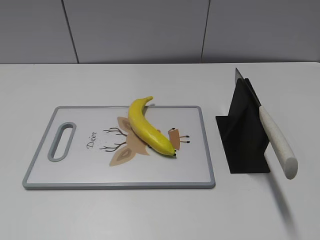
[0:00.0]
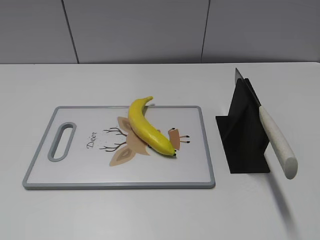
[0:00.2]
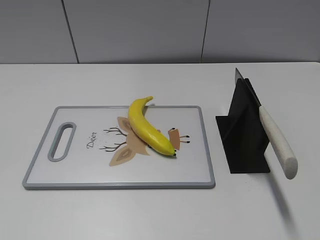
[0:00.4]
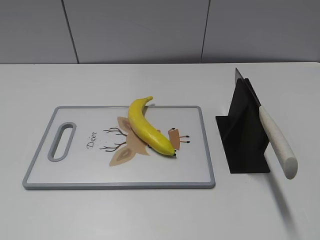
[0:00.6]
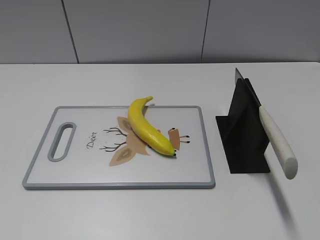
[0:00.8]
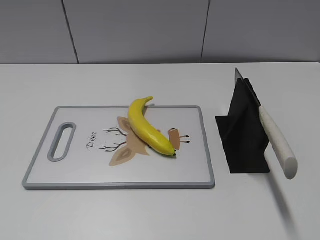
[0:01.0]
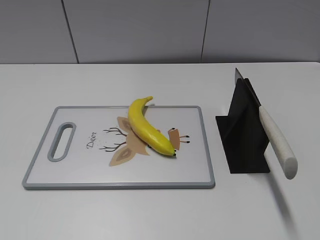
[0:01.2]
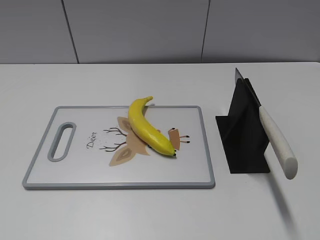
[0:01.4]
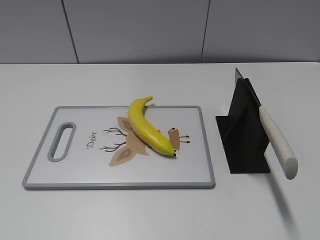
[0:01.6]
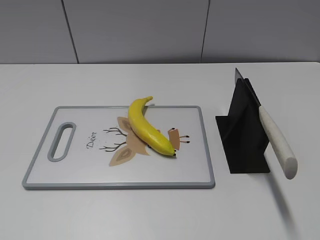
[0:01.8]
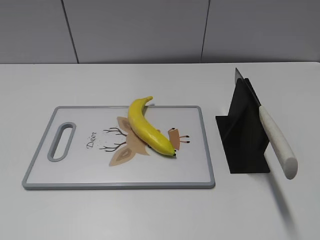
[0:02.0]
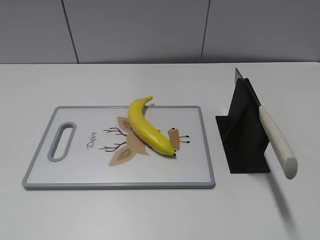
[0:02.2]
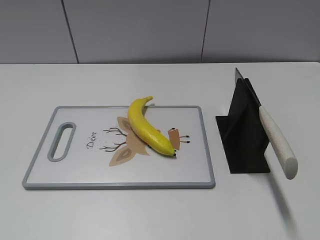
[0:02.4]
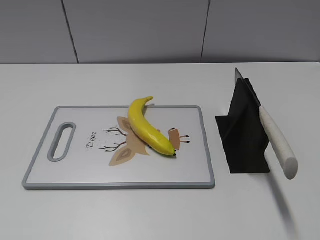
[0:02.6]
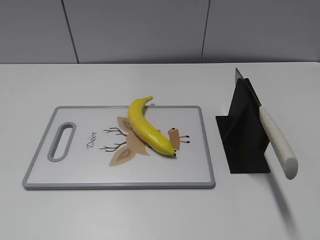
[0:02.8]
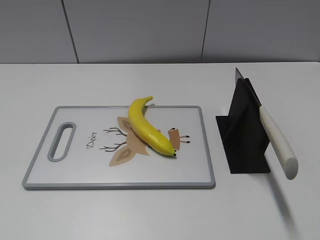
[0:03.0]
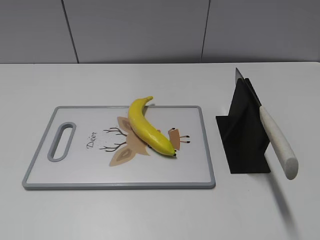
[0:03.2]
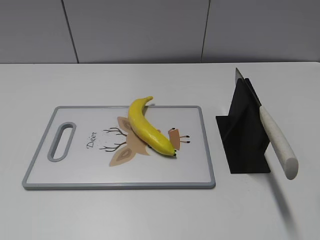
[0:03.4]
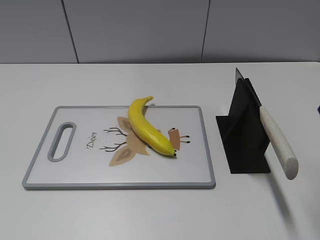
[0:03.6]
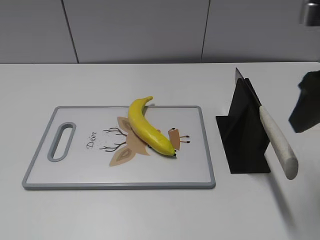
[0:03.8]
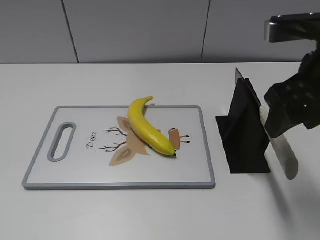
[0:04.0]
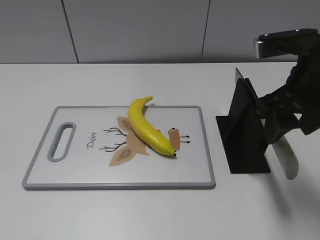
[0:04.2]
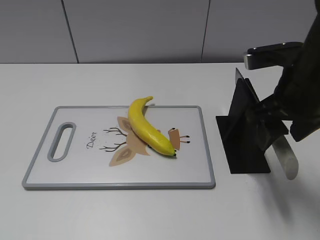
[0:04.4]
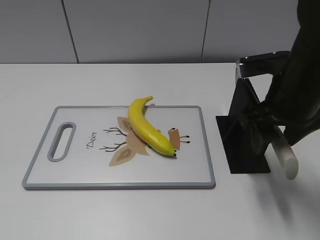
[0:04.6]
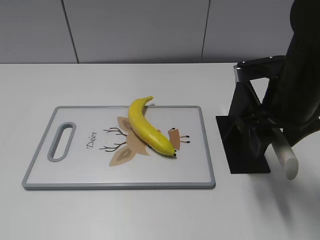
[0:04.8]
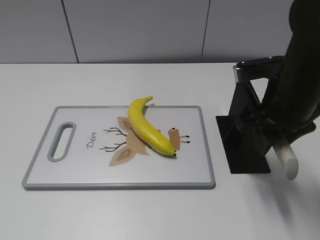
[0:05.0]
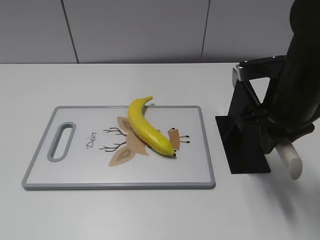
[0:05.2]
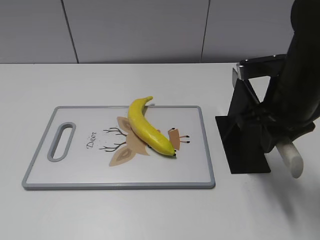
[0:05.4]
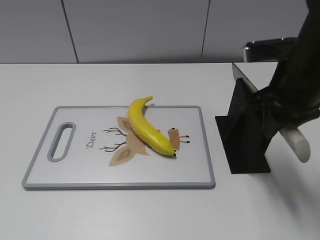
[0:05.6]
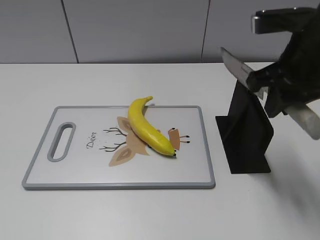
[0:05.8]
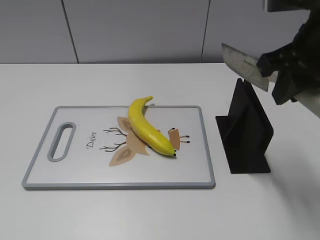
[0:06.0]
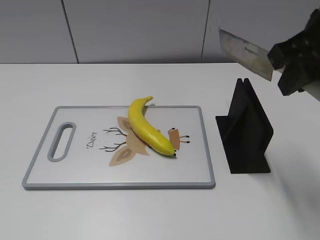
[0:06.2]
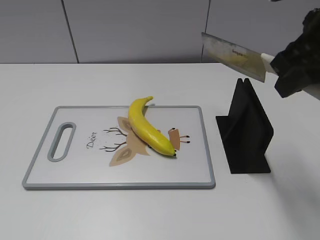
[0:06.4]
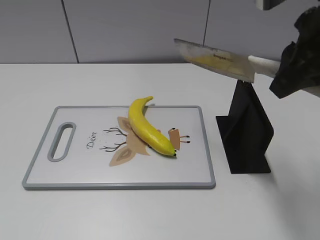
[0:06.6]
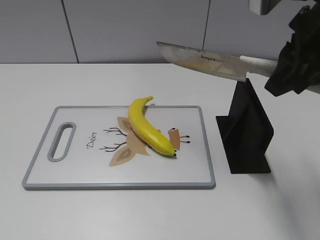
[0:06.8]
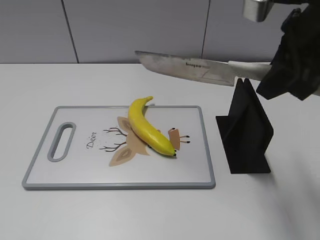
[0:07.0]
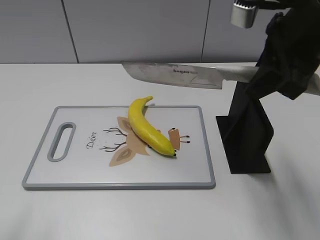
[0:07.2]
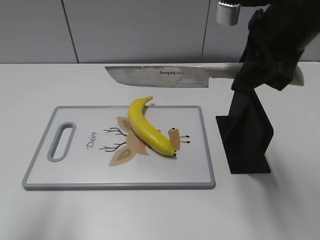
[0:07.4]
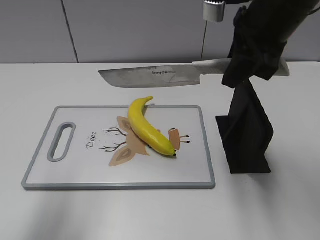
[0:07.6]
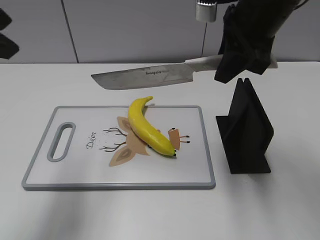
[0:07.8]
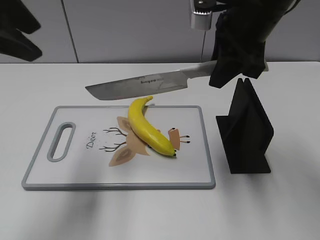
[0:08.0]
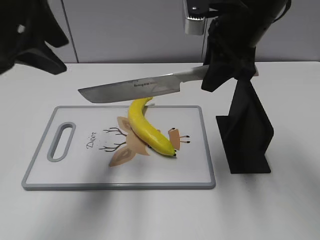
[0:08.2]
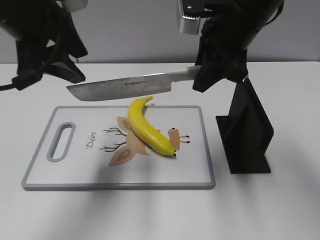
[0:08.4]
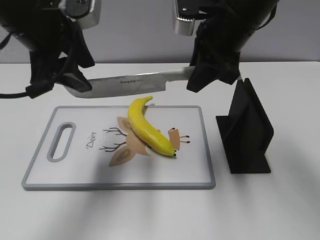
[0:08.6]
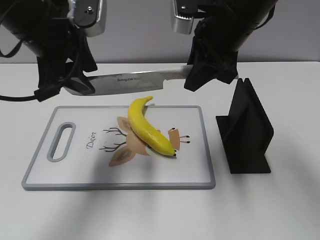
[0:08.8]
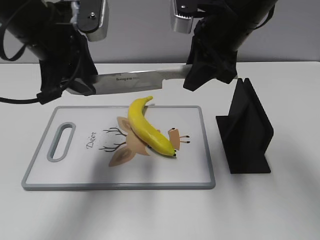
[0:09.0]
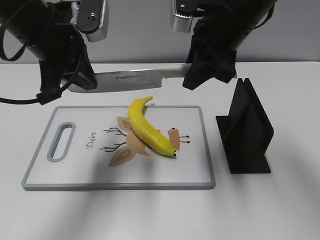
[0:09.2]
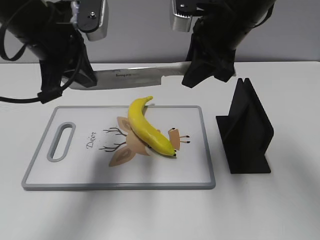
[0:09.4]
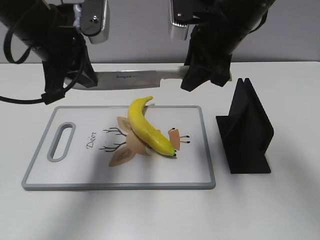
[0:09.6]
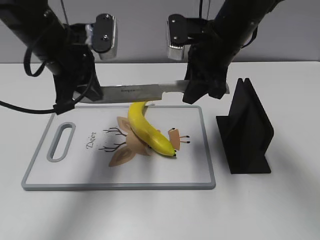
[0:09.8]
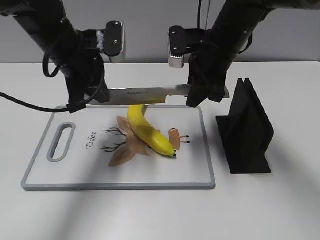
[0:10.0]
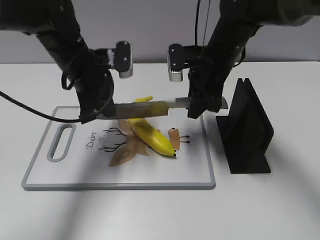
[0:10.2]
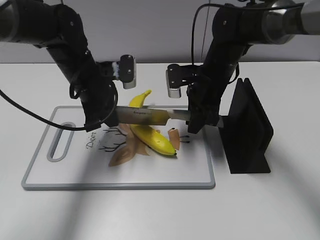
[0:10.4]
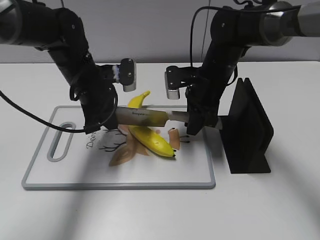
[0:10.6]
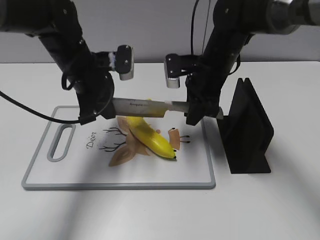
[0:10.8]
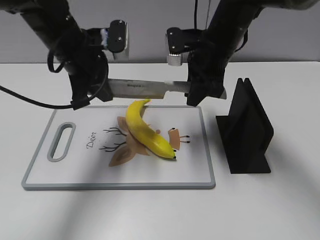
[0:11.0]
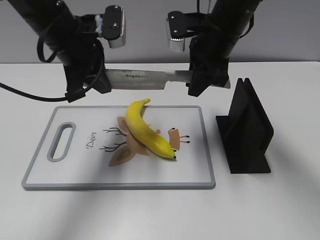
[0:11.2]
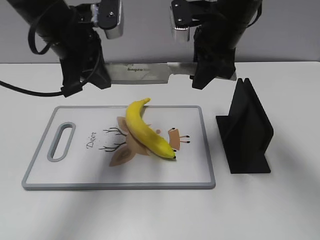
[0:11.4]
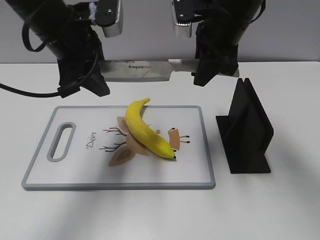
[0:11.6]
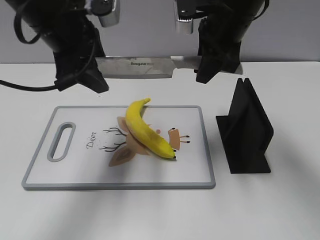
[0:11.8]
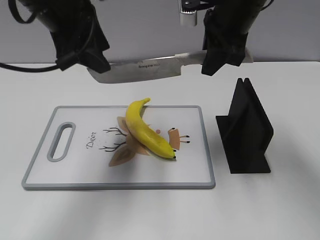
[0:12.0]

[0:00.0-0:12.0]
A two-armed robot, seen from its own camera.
Task of the whole recording: cut plastic banana.
Step, 0:00.0 to 0:06.4: Grab the knife handle with your right hand.
Step, 0:06.6 to 0:11.6: Lift the knife with your right hand.
0:03.0 to 0:04.4: The right gripper heads forward, downward and to the left, covering about 20 cm.
0:04.4 to 0:06.0: The right gripper is displaced upward by approximately 5 cm, and closes.
0:06.0 to 0:07.6: The left gripper moves forward and upward, some 20 cm, while the right gripper heads forward, covering roughly 5 cm.
0:07.6 to 0:09.0: The left gripper heads forward, downward and to the right, covering roughly 20 cm, while the right gripper shifts by roughly 5 cm.
0:09.0 to 0:10.4: The left gripper goes about 15 cm downward and forward, and closes its fingers. The right gripper travels downward by about 15 cm.
0:10.4 to 0:12.0: The two grippers go some 15 cm upward. The left gripper opens up.

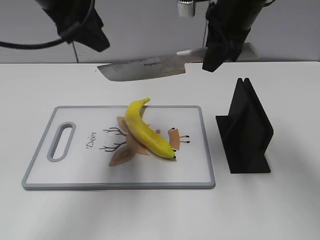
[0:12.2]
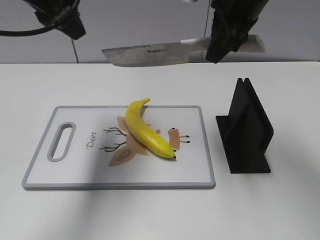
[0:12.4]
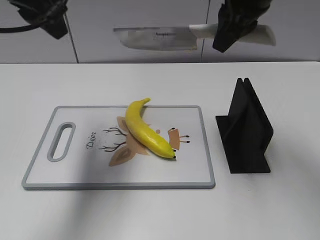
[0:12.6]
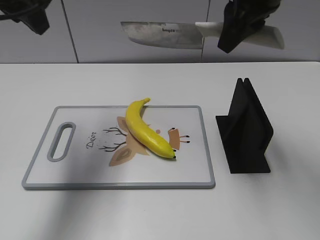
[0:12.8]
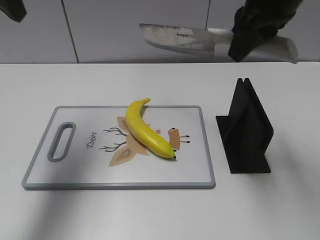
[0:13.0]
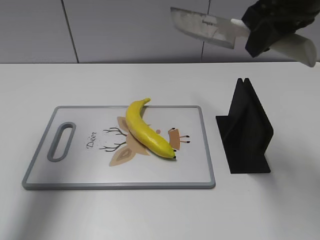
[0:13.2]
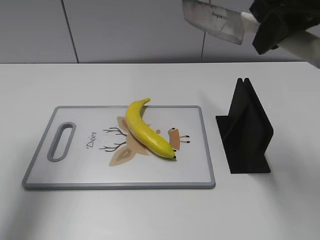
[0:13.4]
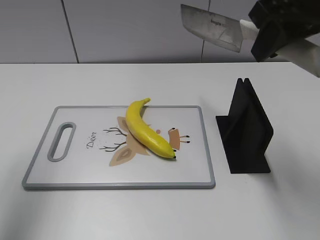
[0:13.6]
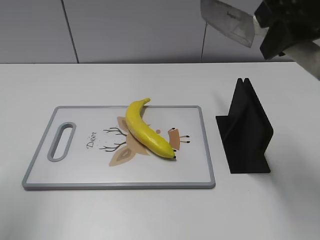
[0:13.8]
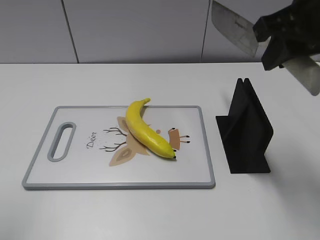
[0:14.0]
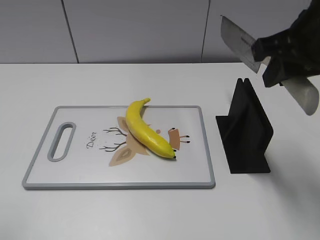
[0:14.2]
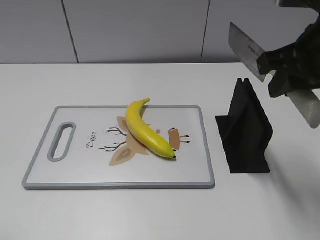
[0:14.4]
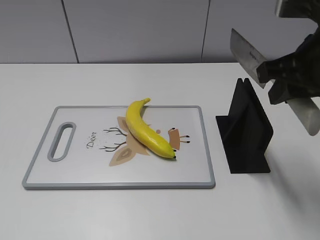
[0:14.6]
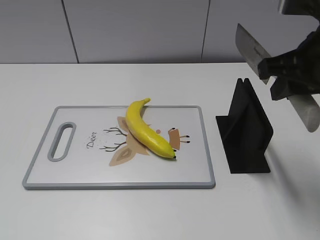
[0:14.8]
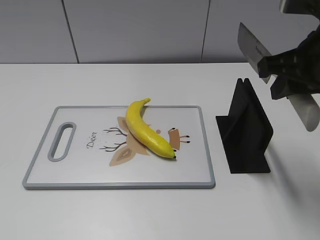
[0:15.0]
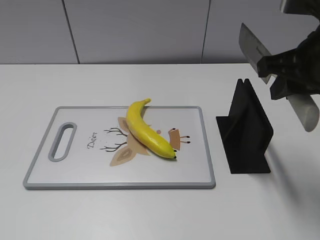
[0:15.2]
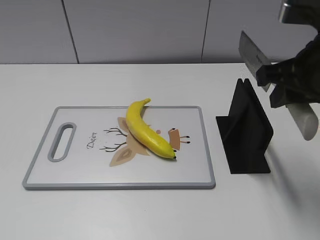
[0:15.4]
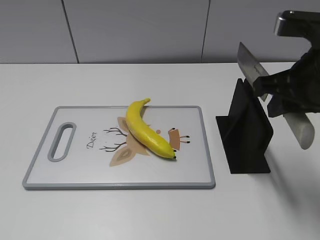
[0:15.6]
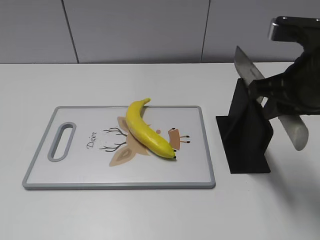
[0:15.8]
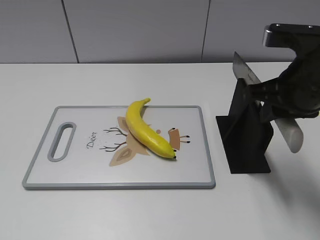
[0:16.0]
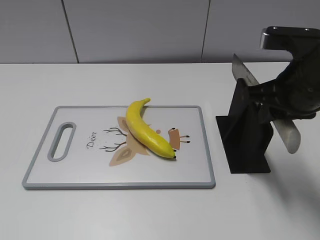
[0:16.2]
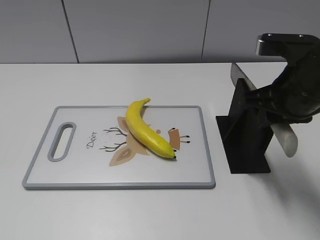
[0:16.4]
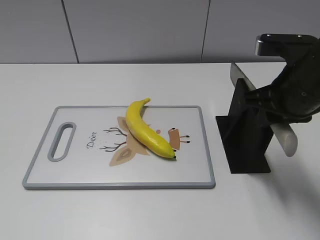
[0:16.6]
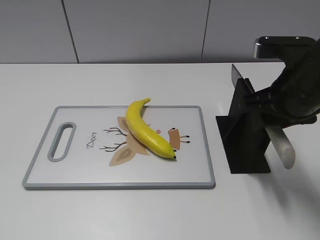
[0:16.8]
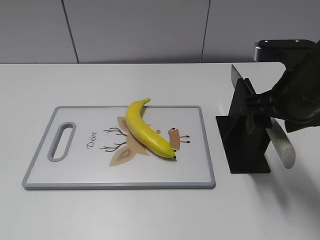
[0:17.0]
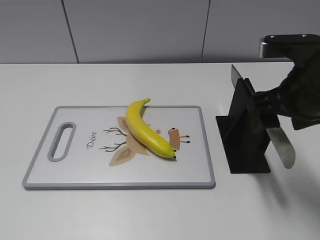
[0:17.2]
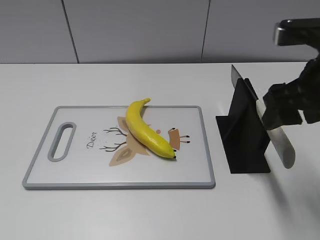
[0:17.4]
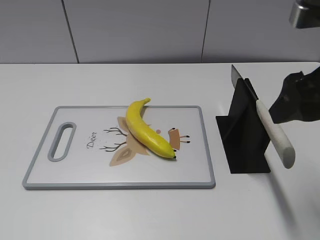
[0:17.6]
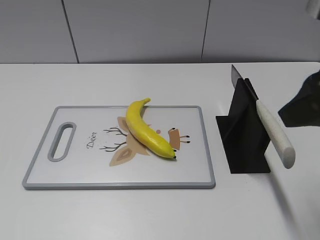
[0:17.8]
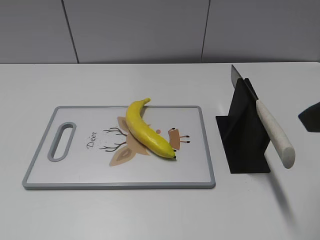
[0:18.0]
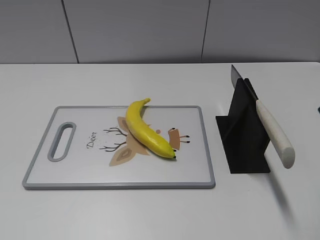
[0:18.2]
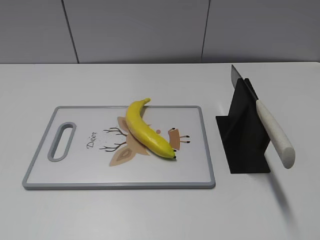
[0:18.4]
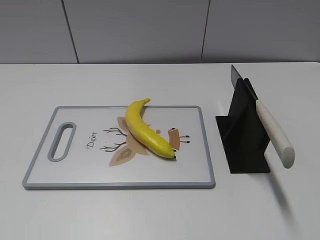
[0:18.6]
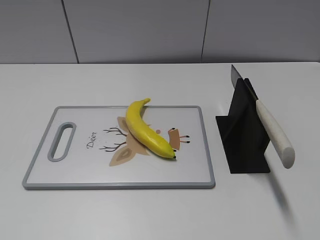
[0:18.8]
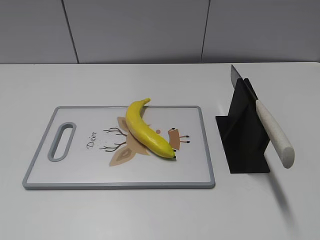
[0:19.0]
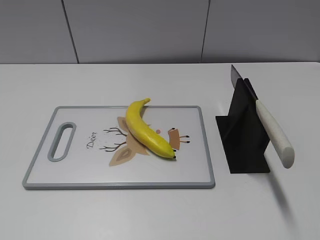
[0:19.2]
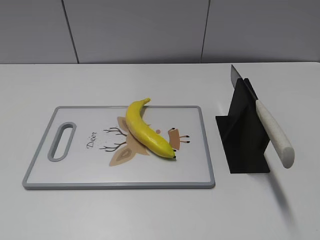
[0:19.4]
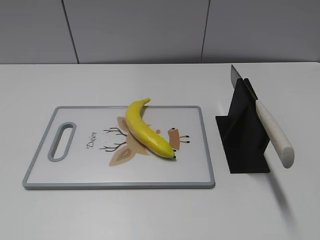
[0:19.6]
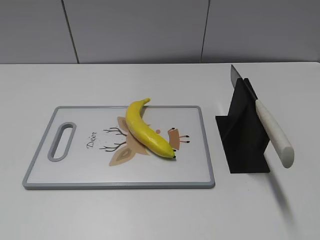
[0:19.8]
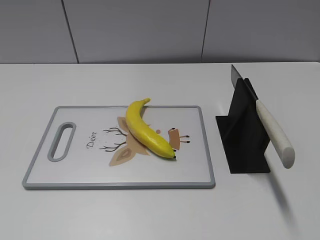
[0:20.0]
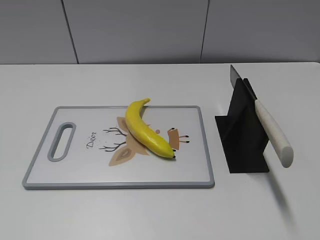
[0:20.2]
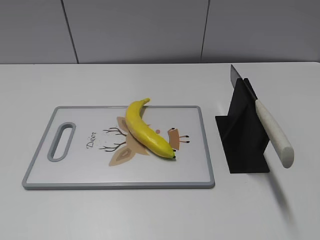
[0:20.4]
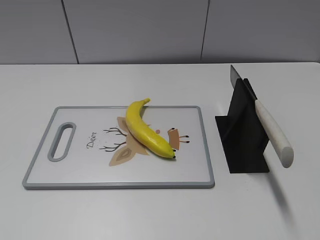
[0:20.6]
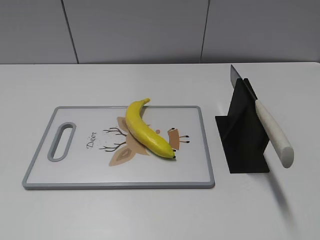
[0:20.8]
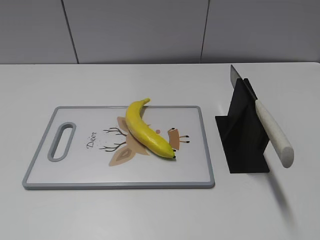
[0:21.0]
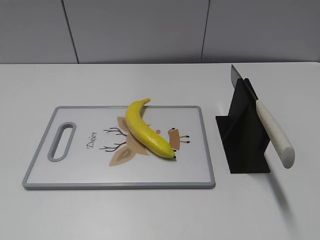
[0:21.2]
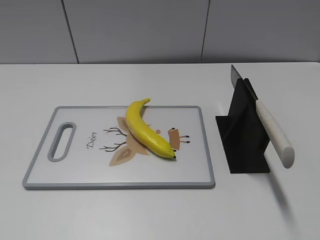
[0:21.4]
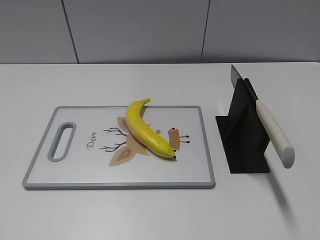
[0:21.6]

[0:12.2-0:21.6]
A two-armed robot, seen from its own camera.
Task of the whole recording: cut plastic banana.
Step, 0:12.2 to 0:12.8: Cut the banana with your right hand.
Step, 0:13.2 to 0:14.2: Lift the knife with your right hand.
Step, 0:14.4 to 0:21.0: Place the knife on the storage rack with your right hand.
0:12.2 to 0:13.8: The left gripper moves to the left and backward, about 20 cm. The right gripper goes roughly 15 cm backward, to the right and upward.
0:13.8 to 0:15.4: The left gripper travels backward and downward by some 20 cm, while the right gripper is displaced downward by approximately 10 cm.
0:15.4 to 0:17.0: The right gripper moves downward, approximately 5 cm, and opens.
0:17.0 to 0:18.4: The right gripper travels backward and upward by about 20 cm.
